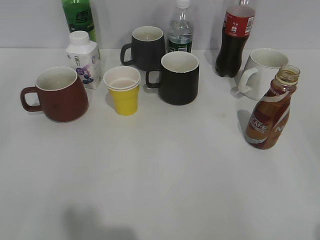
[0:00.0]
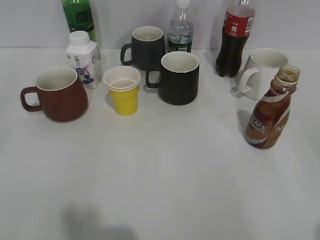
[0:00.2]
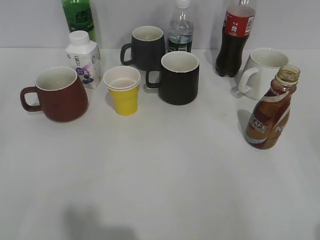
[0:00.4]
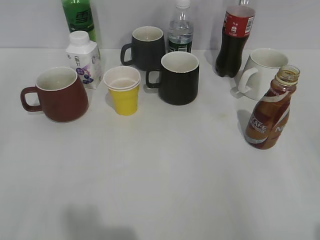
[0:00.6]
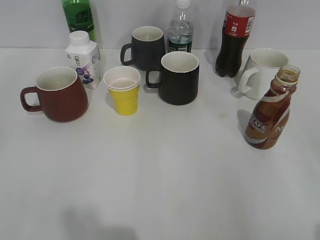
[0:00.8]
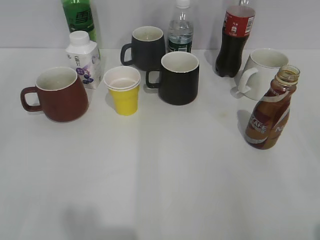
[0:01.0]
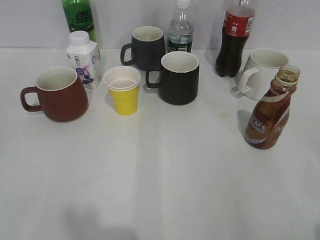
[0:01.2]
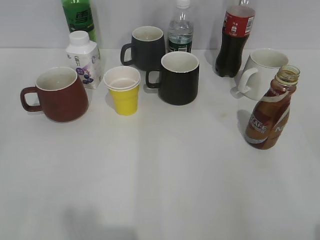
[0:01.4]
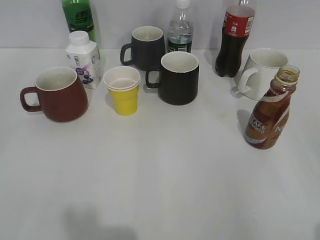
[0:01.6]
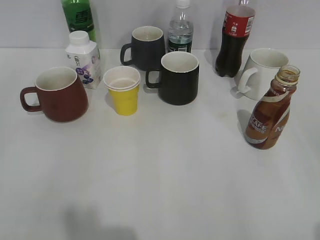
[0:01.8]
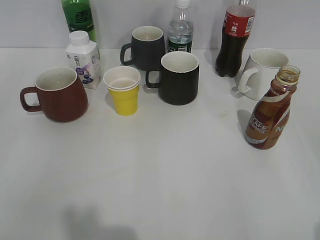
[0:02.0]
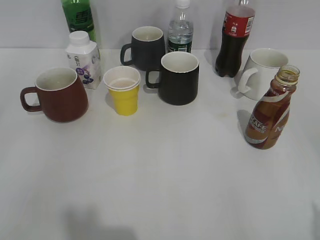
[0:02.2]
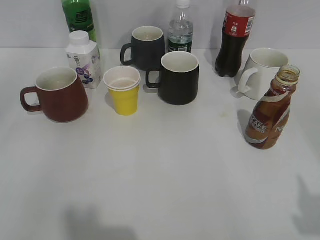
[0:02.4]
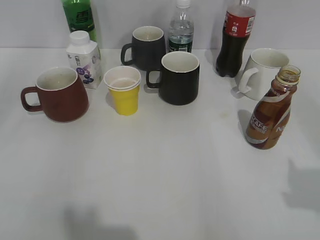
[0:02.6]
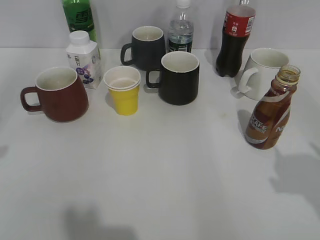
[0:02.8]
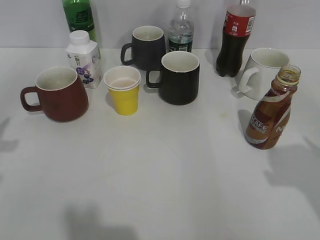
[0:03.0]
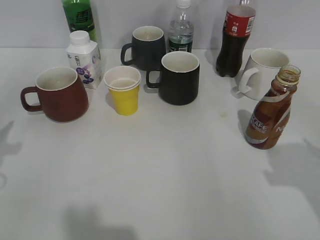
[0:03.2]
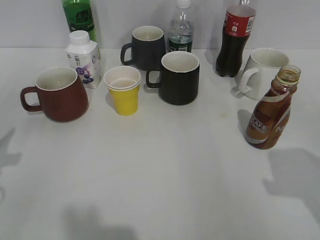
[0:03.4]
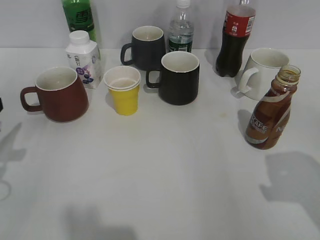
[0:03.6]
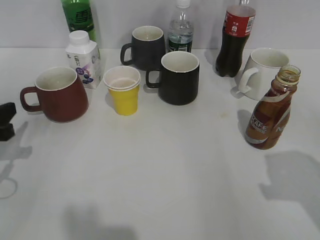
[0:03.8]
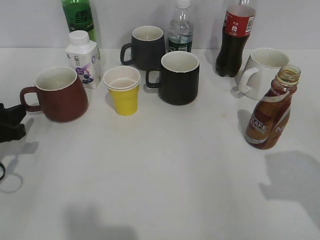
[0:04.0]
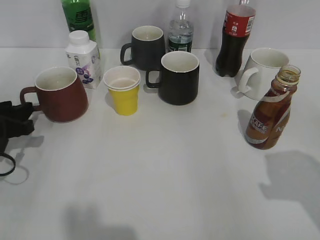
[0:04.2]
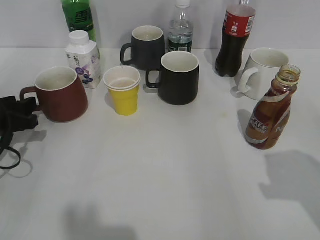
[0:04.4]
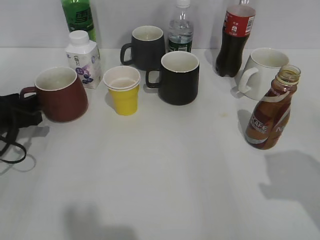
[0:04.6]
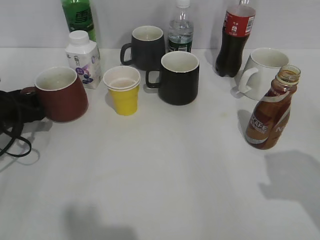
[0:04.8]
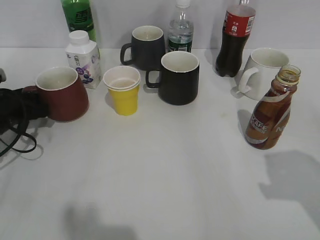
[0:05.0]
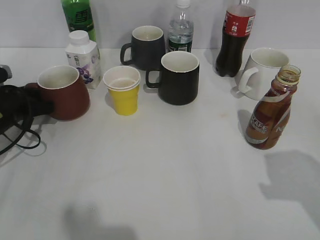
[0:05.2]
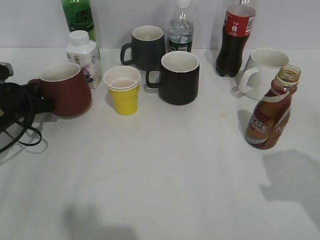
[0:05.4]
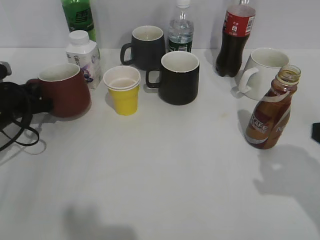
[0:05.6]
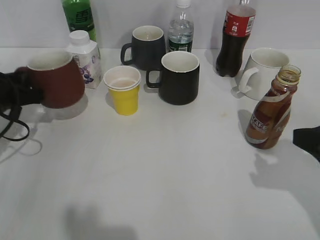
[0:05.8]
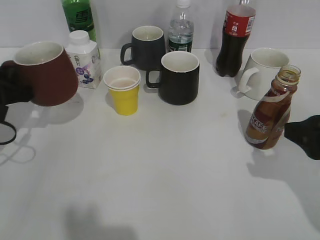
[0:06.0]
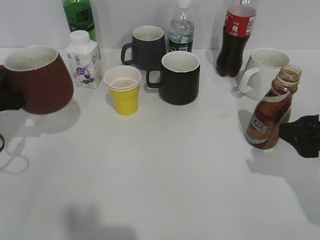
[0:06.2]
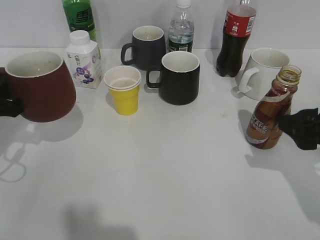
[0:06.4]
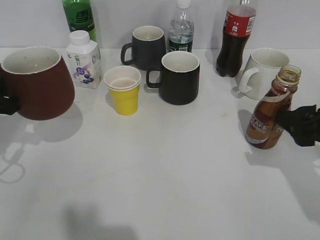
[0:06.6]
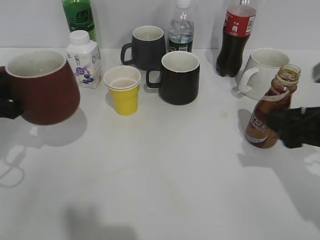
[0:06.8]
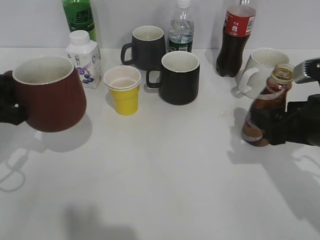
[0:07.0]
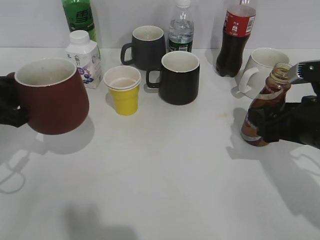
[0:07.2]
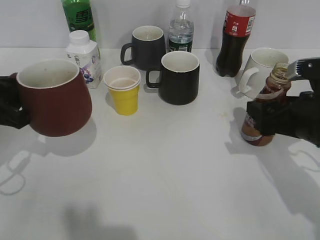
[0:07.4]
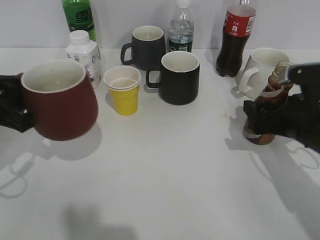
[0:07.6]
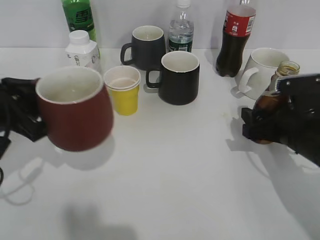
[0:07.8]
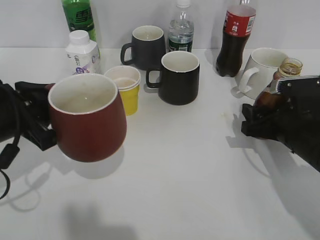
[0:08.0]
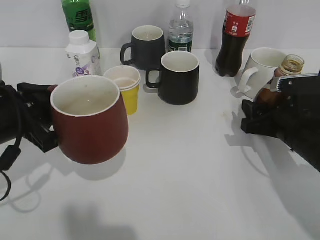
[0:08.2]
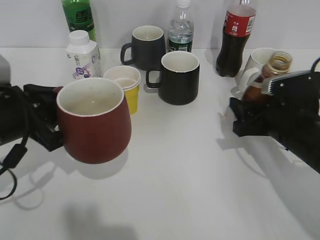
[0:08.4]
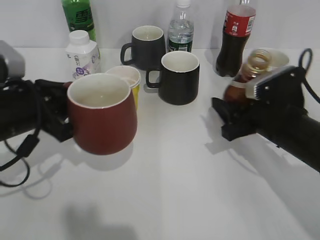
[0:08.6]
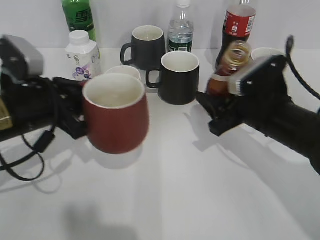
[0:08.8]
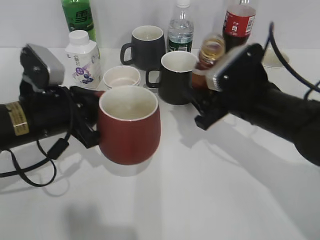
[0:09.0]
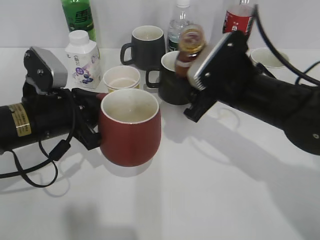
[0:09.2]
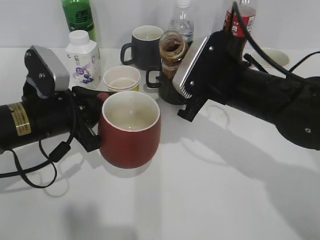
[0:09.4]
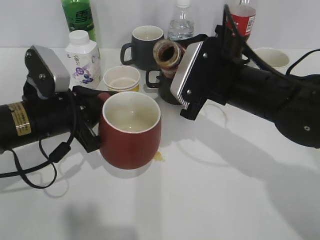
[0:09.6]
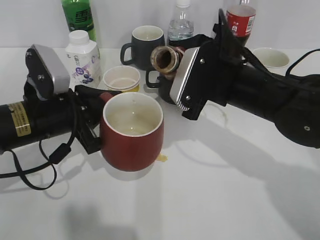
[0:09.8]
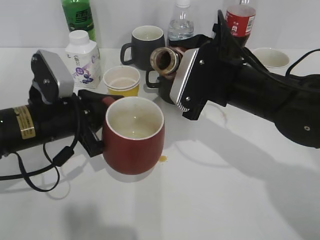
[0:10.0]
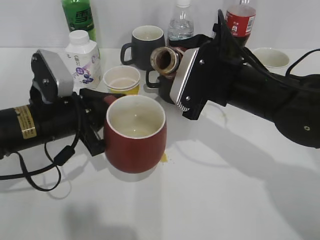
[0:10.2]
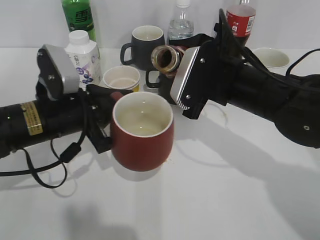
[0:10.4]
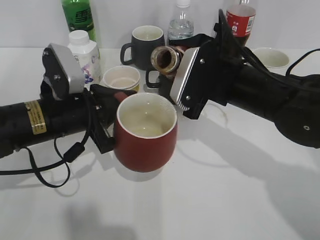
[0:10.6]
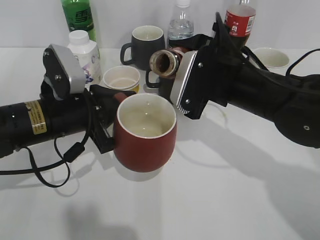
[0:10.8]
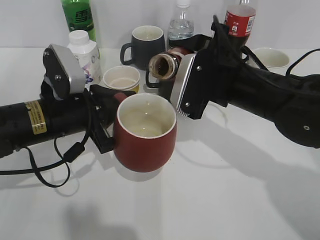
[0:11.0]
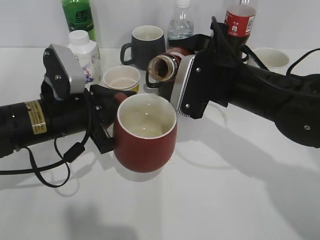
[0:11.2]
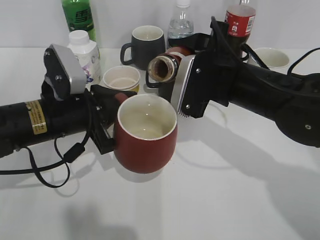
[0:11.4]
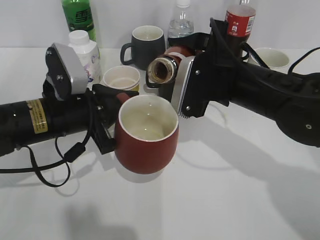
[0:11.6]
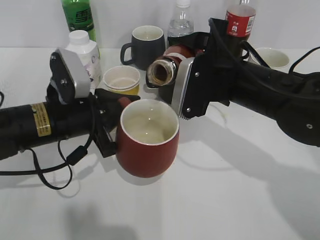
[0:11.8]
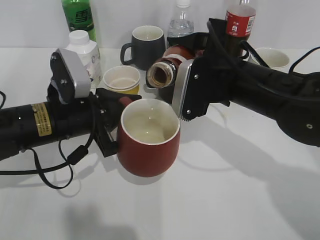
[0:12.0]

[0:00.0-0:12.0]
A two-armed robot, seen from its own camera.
Step, 1.8 to 5.4 s: Grasp the red cup with left gripper.
Step, 5.6 to 8.0 s: Grasp the bottle with coffee with right gripper.
1.6 to 3.0 s: The right gripper heads forward, covering approximately 10 cm. Meanwhile the left gripper moves forward, approximately 20 cm.
3.0 to 4.4 s: The left gripper goes approximately 15 cm downward and forward, and opens; the right gripper closes.
4.4 to 6.0 s: The left gripper closes its fingers. The right gripper travels forward by roughly 5 cm, and opens.
6.0 to 7.6 s: The right gripper moves forward and downward, roughly 10 cm, while the left gripper shifts approximately 5 cm backward.
7.6 to 9.0 s: The right gripper heads to the left, covering some 10 cm, and closes its fingers. Meanwhile the left gripper travels to the right by some 10 cm.
9.0 to 10.4 s: The right gripper shifts by about 5 cm.
10.4 to 12.0 s: There are only small adjustments of the grippers.

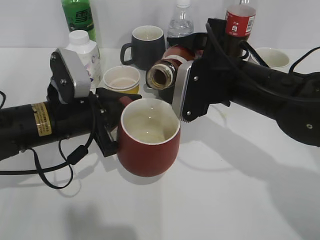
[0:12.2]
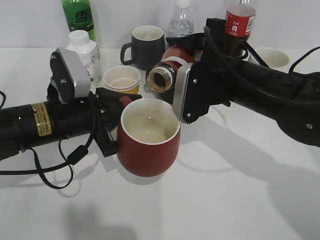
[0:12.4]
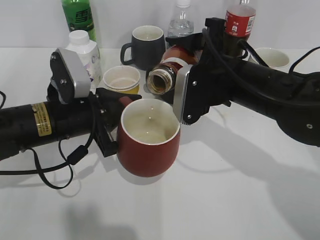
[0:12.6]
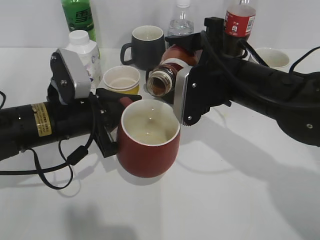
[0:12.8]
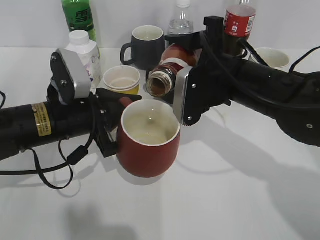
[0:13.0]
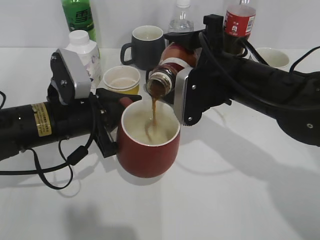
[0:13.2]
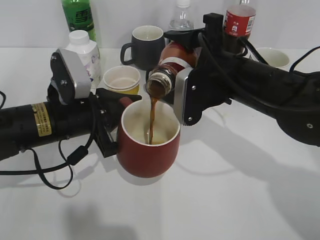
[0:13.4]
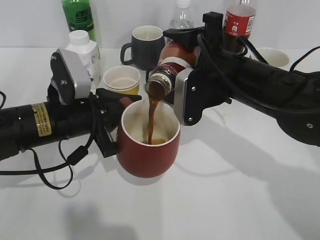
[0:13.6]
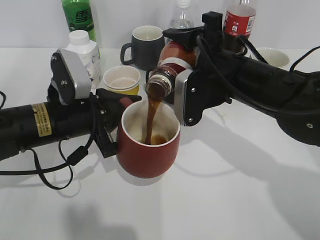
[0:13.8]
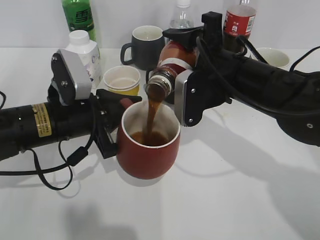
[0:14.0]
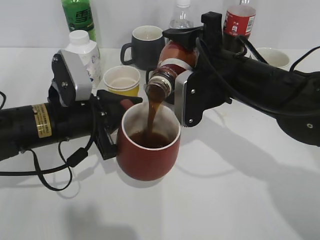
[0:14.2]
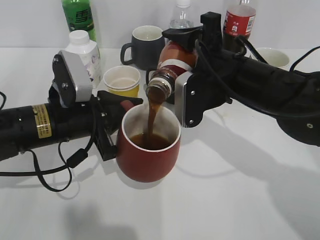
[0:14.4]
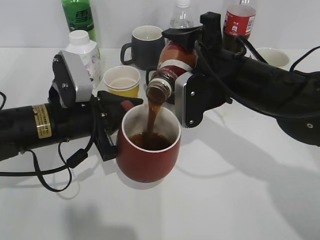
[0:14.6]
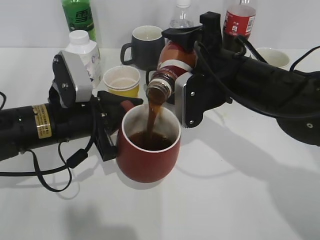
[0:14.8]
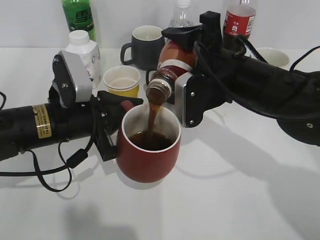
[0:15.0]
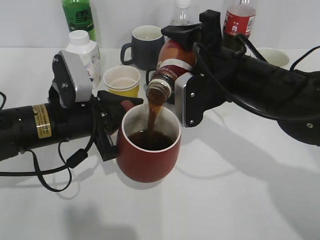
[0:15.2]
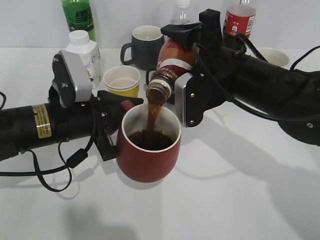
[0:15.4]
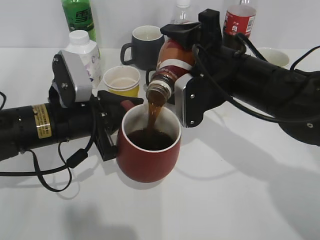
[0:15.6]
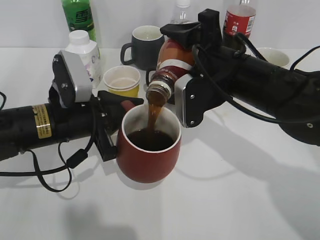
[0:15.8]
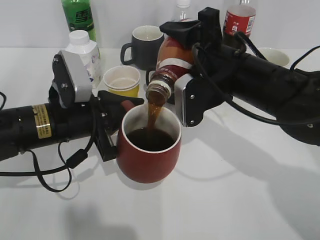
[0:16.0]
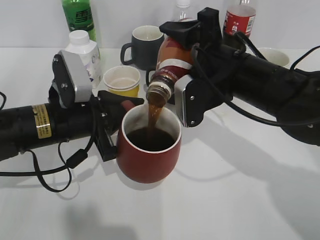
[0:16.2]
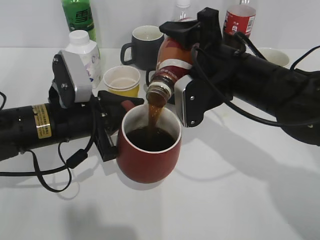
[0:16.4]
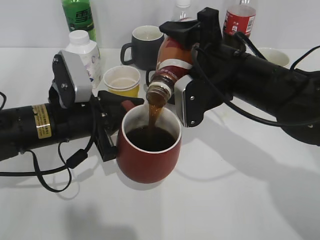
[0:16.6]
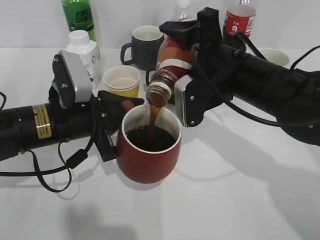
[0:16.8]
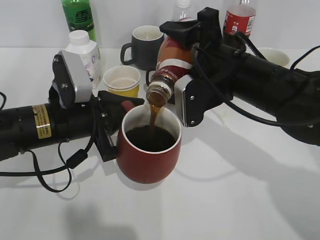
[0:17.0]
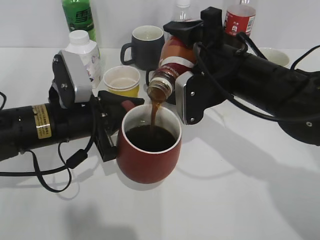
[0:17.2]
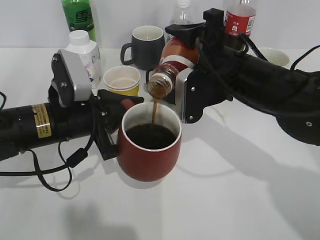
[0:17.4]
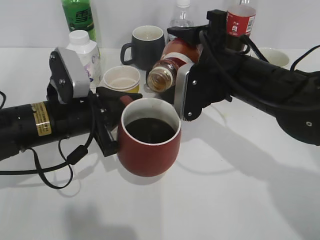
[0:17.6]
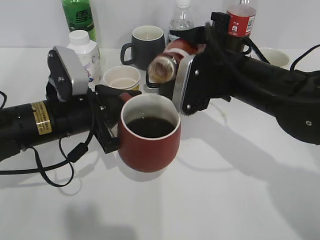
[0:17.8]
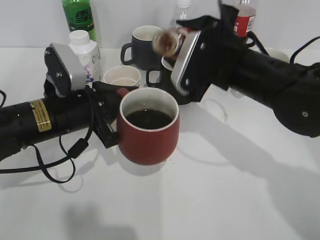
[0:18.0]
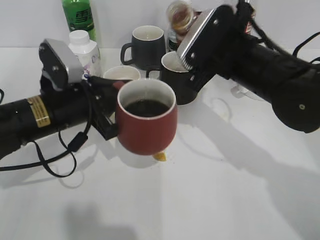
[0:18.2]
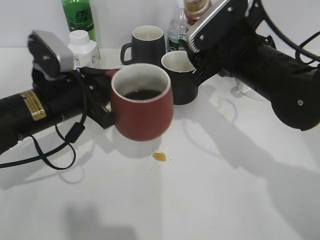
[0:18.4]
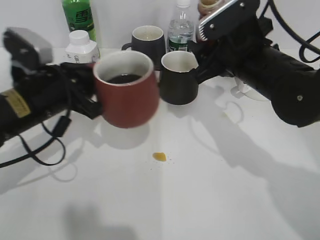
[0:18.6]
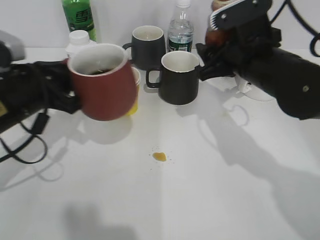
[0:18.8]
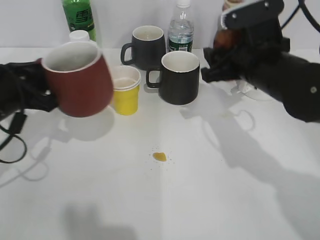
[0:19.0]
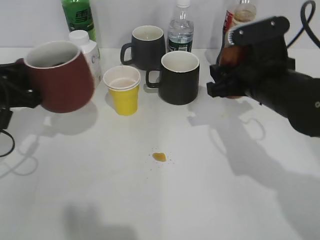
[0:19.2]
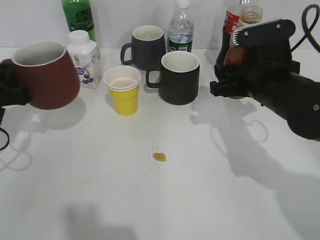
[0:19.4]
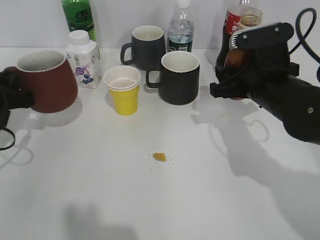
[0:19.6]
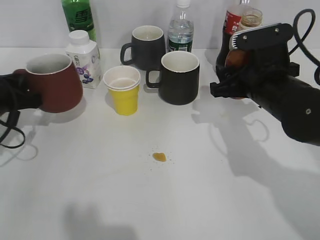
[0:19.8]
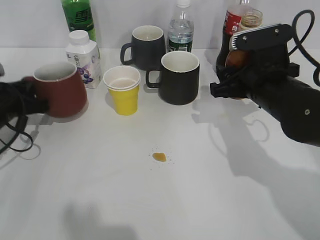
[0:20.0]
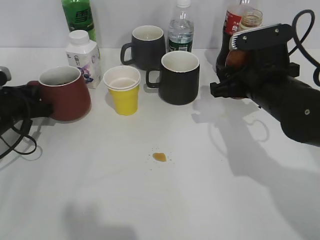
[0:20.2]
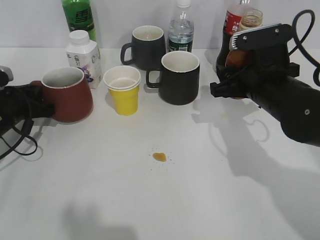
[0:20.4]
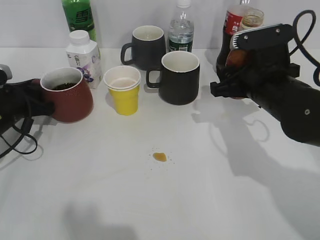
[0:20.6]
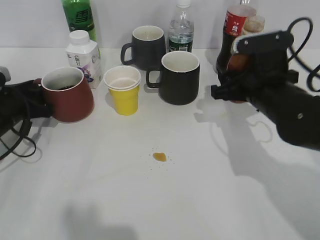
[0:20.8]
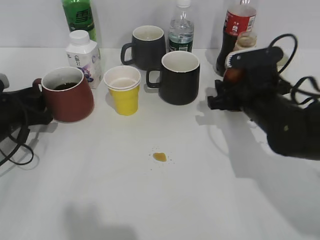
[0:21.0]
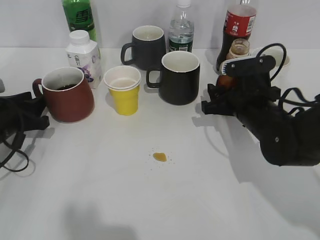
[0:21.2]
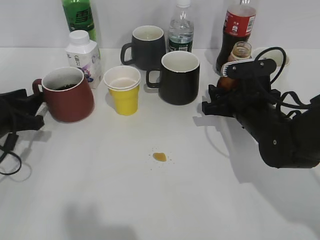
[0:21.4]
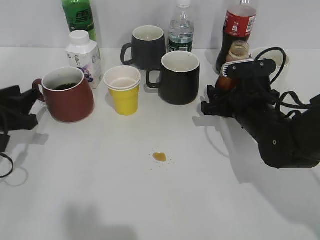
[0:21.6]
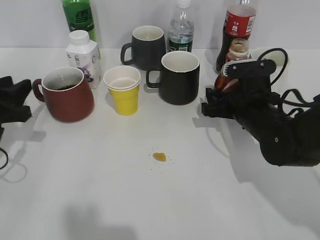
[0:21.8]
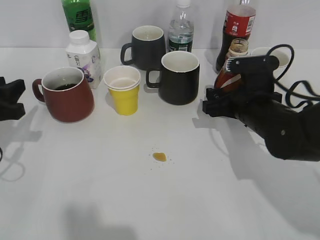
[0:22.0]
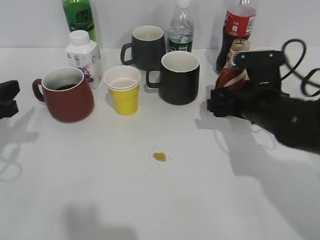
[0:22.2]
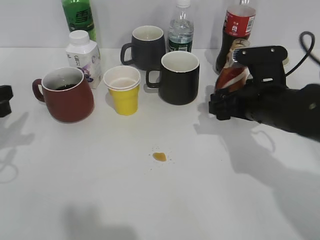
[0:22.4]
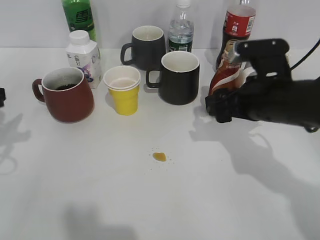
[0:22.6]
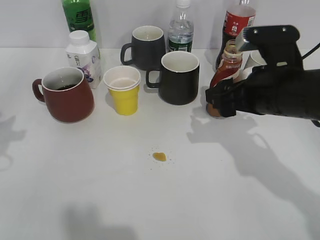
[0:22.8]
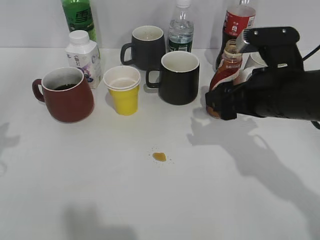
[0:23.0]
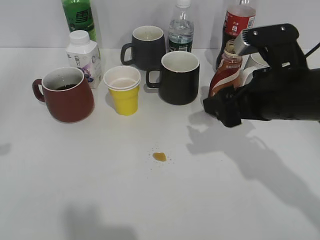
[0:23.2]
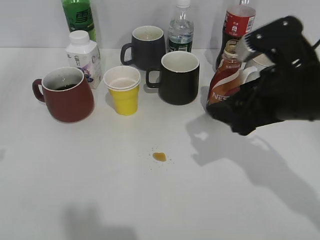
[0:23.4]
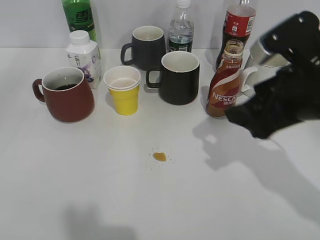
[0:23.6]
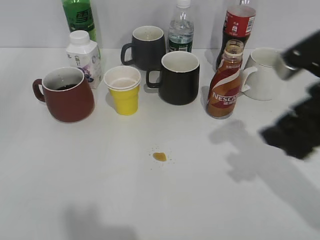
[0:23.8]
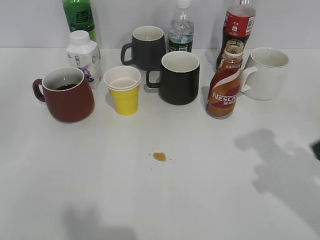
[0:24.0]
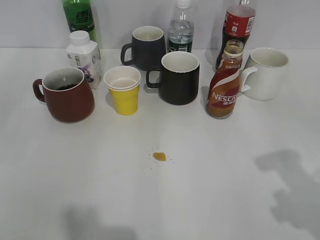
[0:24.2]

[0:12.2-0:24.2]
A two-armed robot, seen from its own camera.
Step, 12.2 to 17.8 s: Pour the coffee from bottle to cup with right gripper.
Step, 18.2 to 20.6 s: Place the red cup on the table with left gripper.
Step, 20.8 to 22.2 s: Place the coffee bottle on the table with right gripper.
12.2 to 13.8 s: There are only small adjustments of the grippers.
13.8 to 16.6 s: The grippers move only a little.
18.2 to 19.8 s: The right gripper moves to the right, some 5 cm. The left gripper moves to the left, roughly 15 cm.
19.8 to 21.2 s: The right gripper is displaced downward by roughly 5 cm, while the left gripper opens.
21.2 to 22.6 s: The right gripper travels upward by some 5 cm, and opens, while the left gripper travels upward and backward by about 10 cm.
22.6 to 24.2 s: The left gripper is displaced backward and upward by some 20 cm. The right gripper shifts roughly 20 cm backward, upward and to the right.
